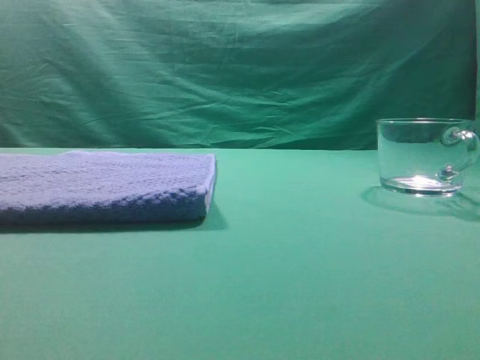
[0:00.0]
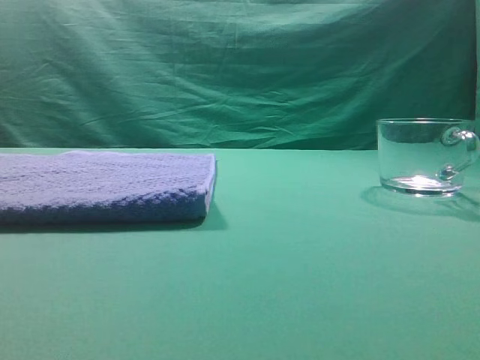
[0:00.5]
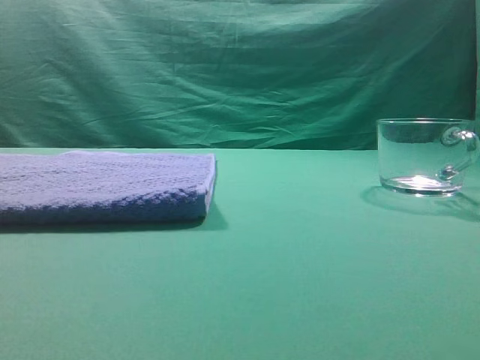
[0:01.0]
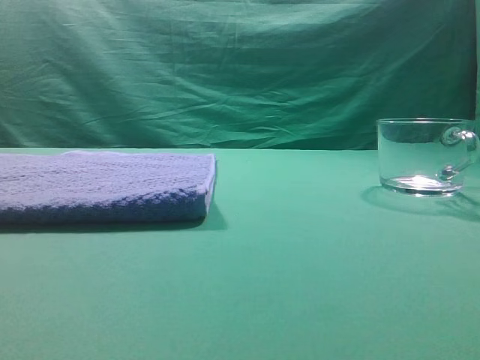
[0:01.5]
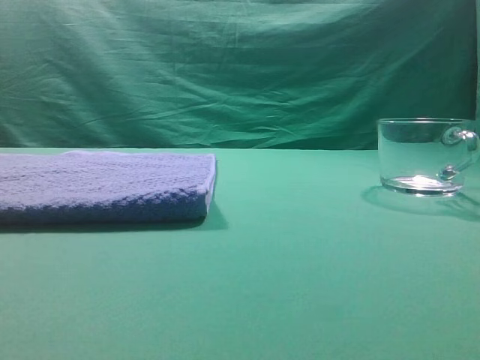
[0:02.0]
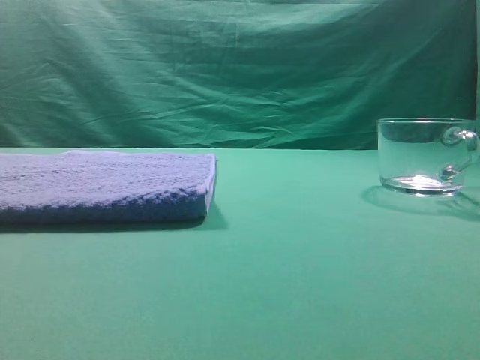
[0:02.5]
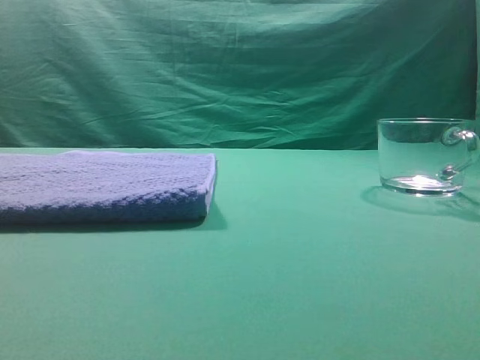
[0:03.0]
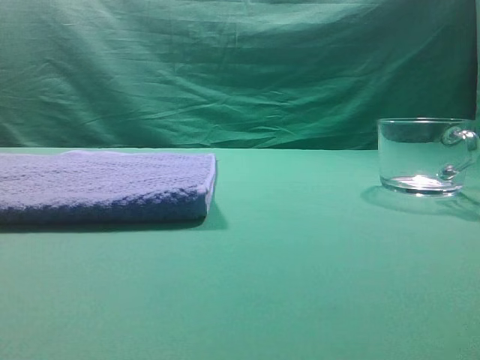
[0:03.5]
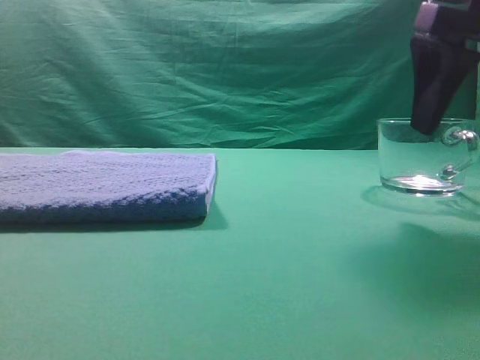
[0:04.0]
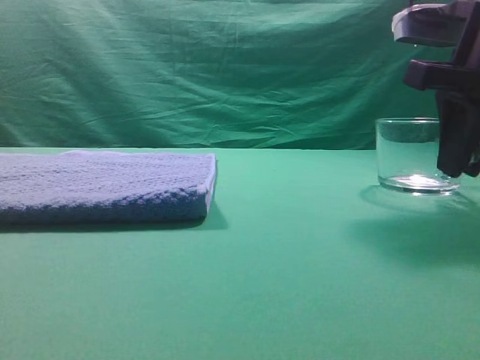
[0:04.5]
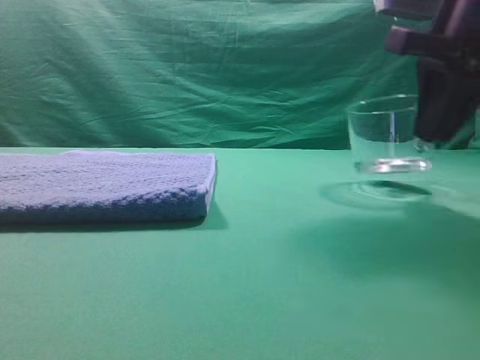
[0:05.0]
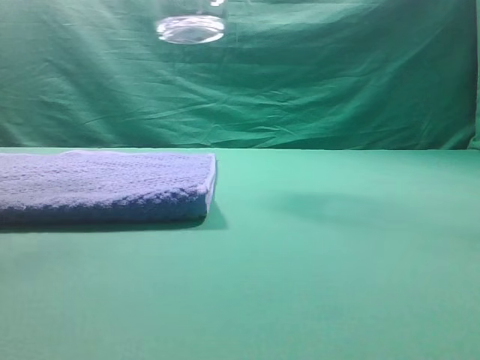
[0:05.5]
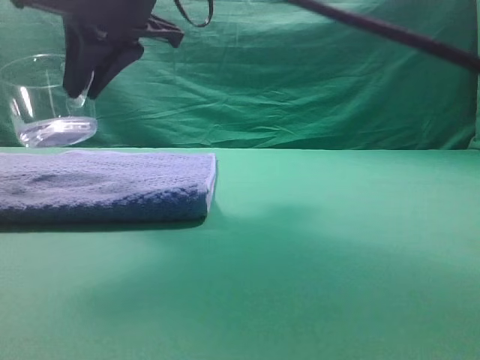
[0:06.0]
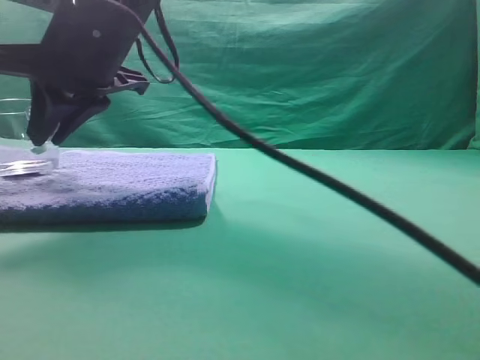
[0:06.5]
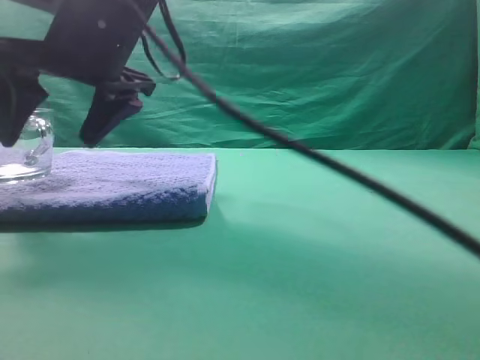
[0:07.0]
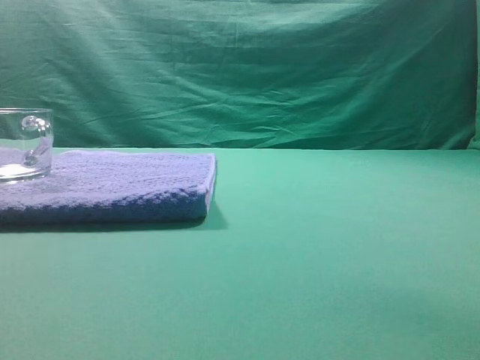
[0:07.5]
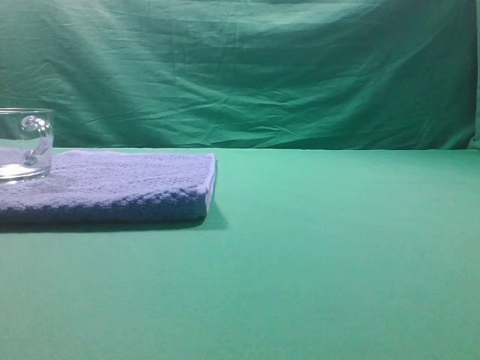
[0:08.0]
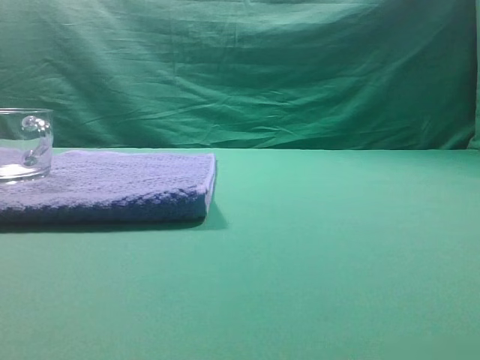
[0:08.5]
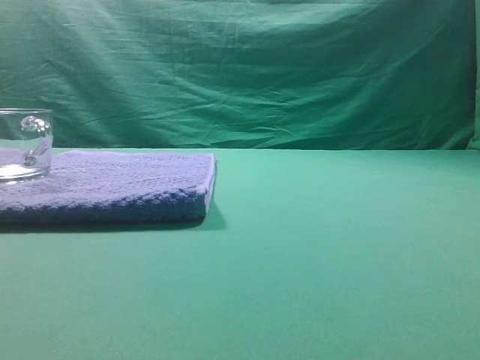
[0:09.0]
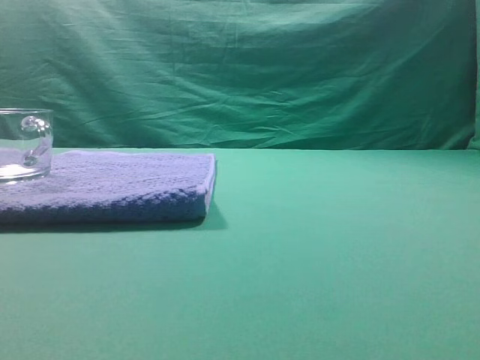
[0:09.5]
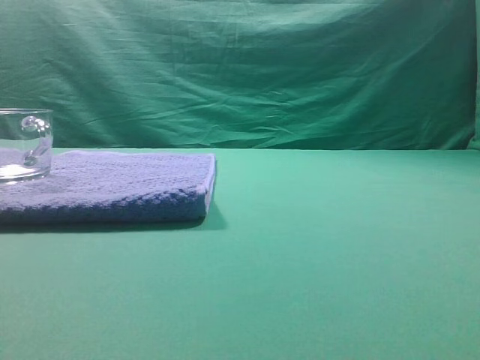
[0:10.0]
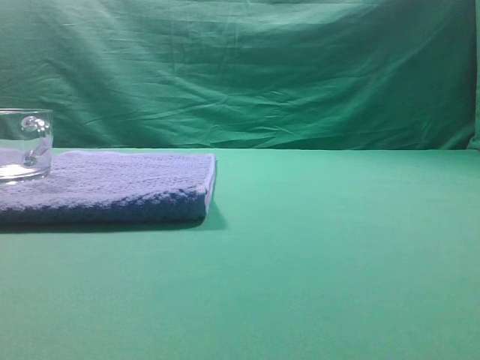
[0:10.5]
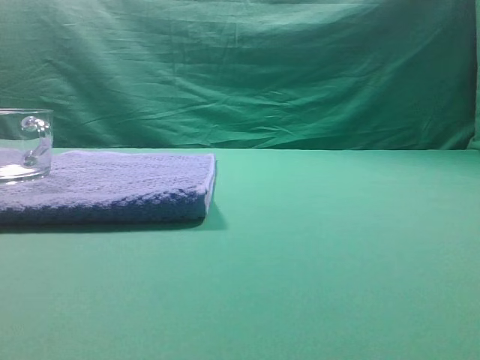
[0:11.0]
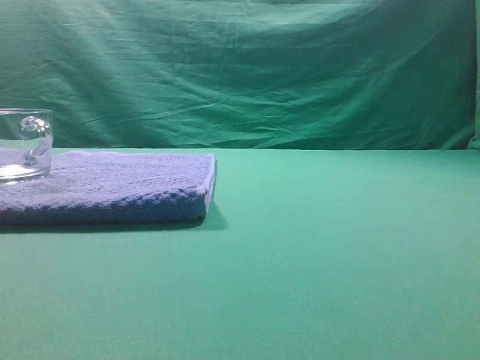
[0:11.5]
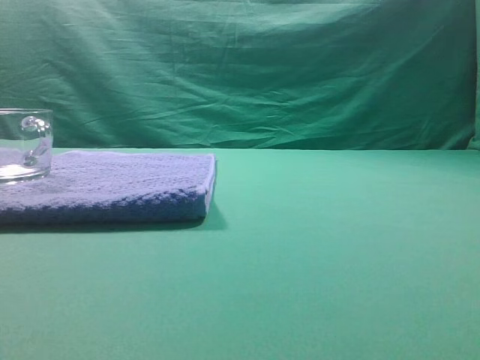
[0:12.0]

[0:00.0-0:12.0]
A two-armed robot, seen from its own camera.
Task of the whole recording: grasp the transparent glass cup and place it within the blue towel.
Step, 0:00.0 to 0:05.0: Grasp the transparent glass cup.
Step, 0:05.5 to 0:07.0: Place the glass cup on the blue zone.

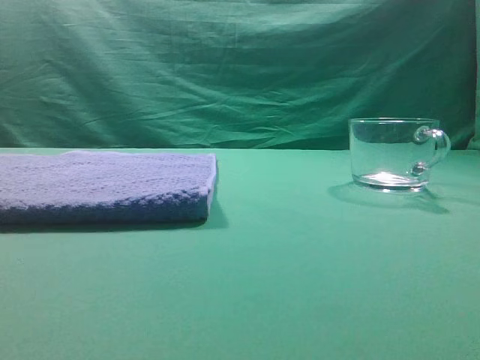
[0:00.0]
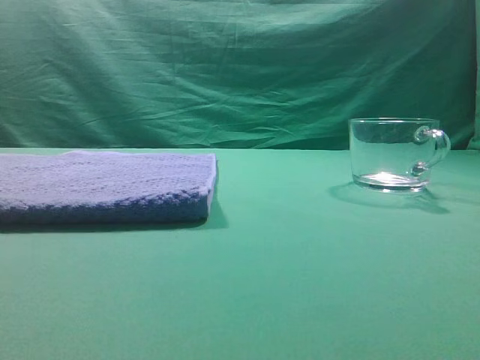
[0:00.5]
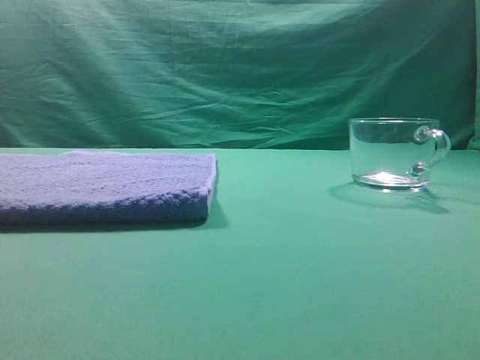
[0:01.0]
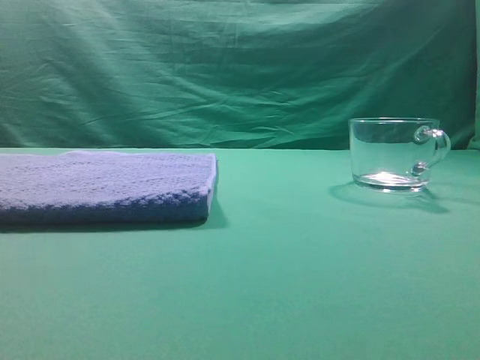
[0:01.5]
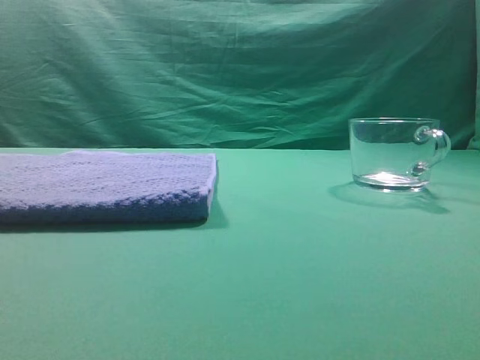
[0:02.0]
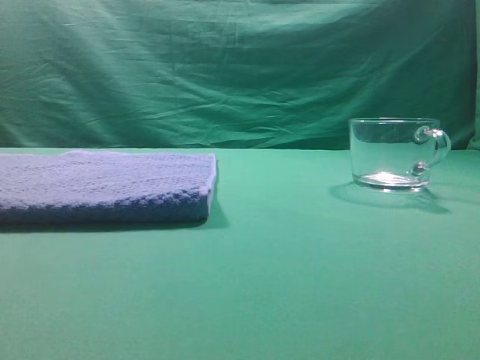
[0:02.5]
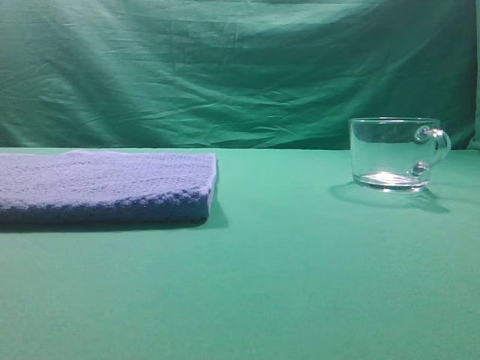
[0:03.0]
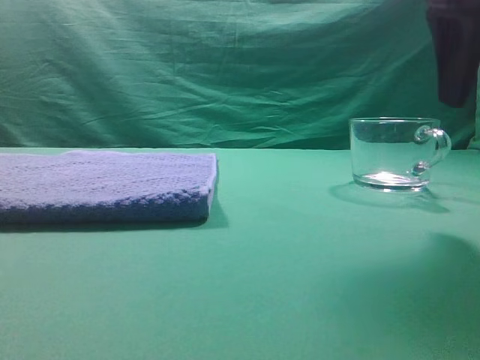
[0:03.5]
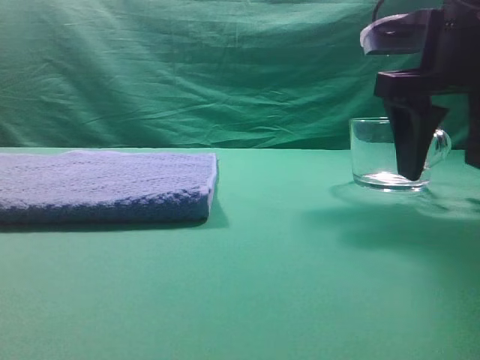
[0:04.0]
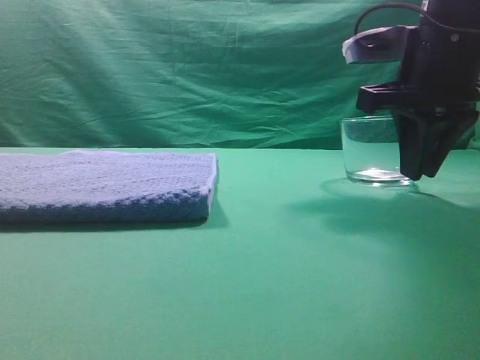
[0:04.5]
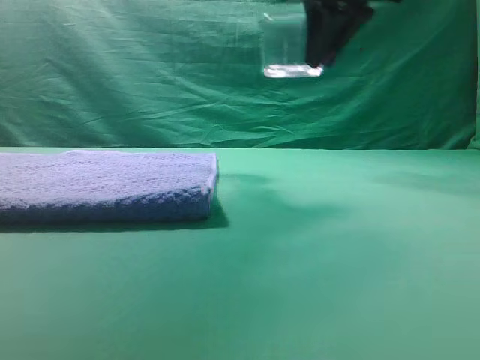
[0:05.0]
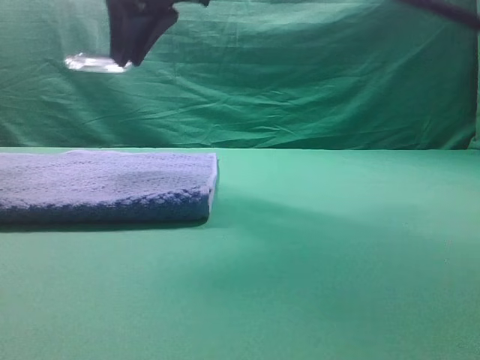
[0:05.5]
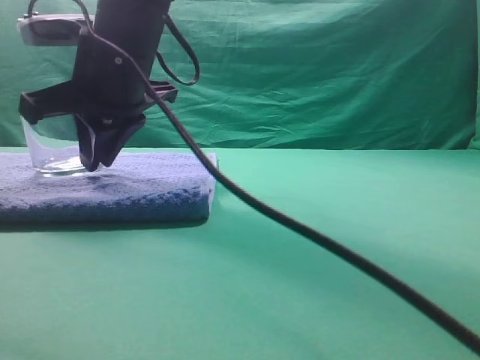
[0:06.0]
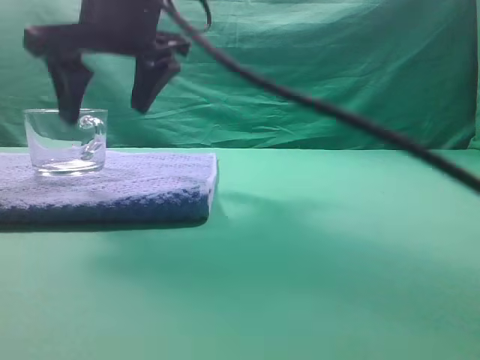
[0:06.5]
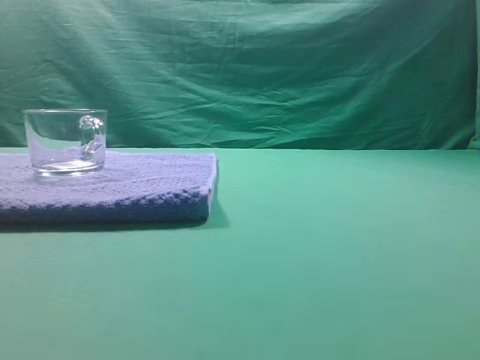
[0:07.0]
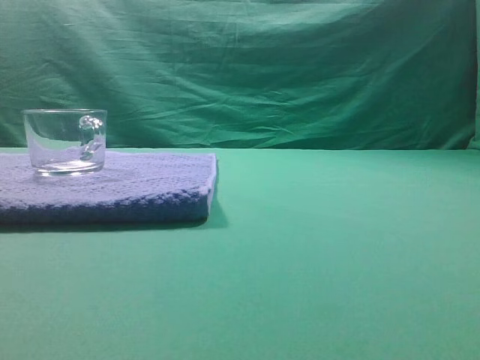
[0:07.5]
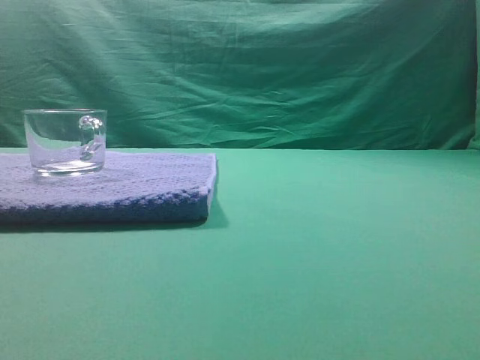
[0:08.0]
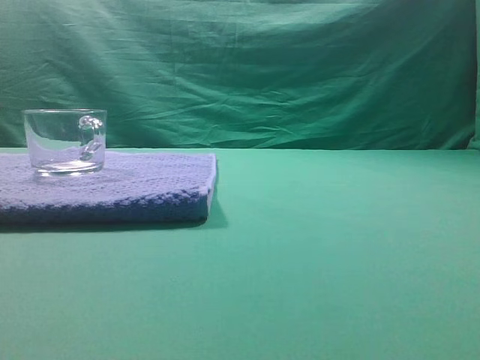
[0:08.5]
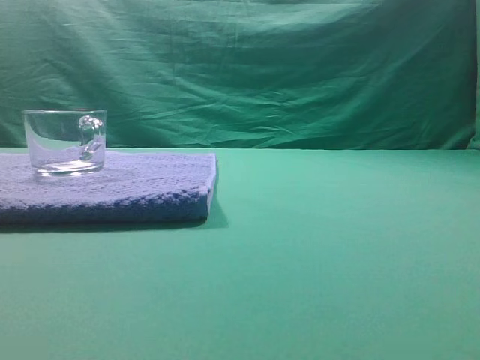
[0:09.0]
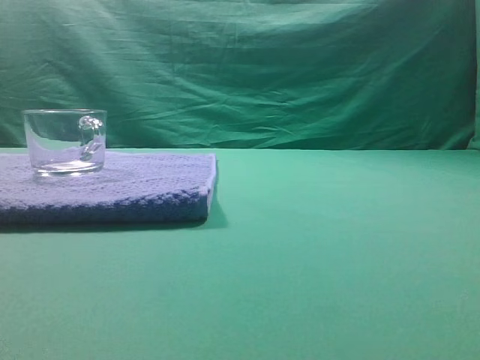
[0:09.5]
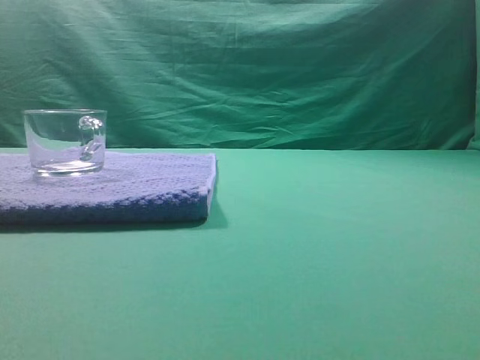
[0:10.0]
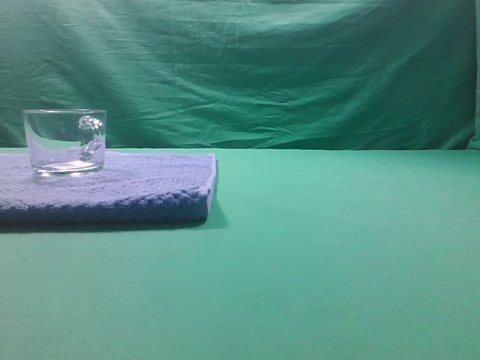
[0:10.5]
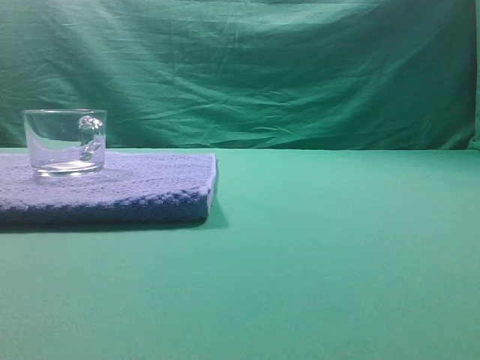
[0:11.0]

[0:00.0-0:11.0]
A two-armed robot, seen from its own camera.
Task of the whole recording: grasp the transparent glass cup and place it within the blue towel.
Step, 0:00.0 to 0:04.5: Grasp the transparent glass cup.
Step, 0:05.0 to 0:06.0: Place the glass cup on the blue zone.
